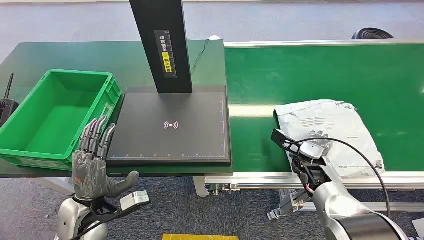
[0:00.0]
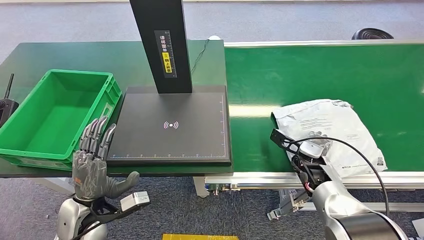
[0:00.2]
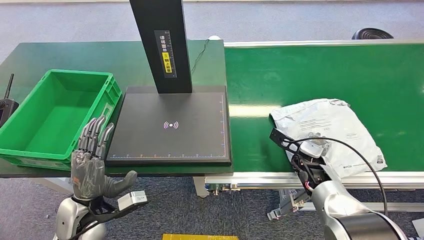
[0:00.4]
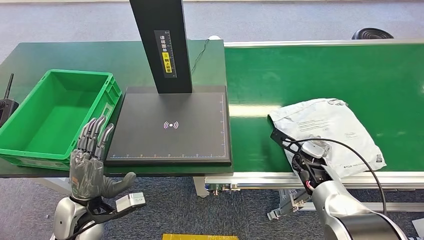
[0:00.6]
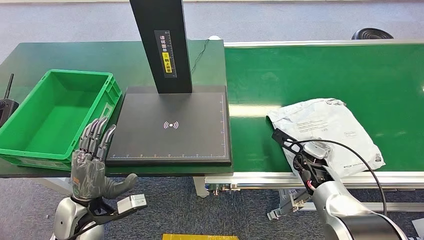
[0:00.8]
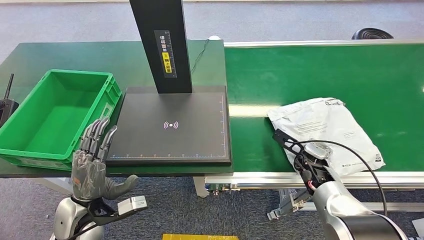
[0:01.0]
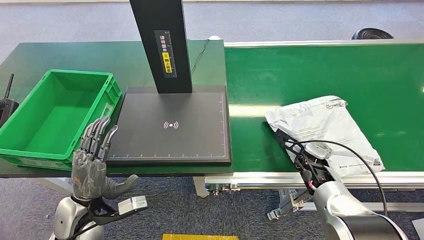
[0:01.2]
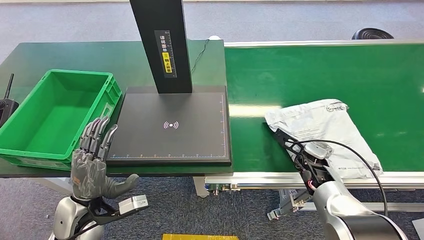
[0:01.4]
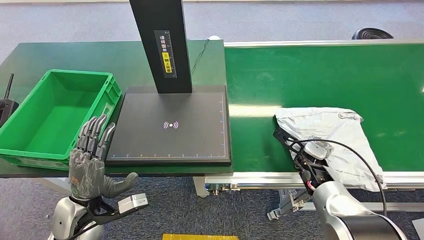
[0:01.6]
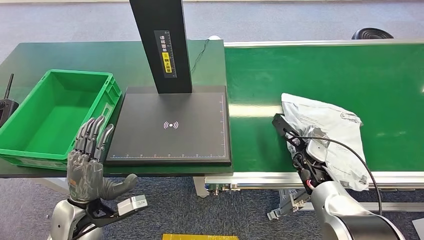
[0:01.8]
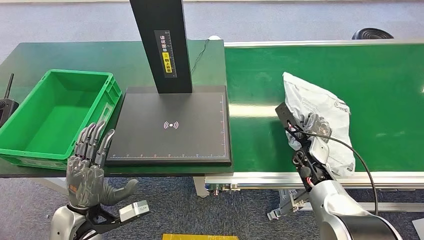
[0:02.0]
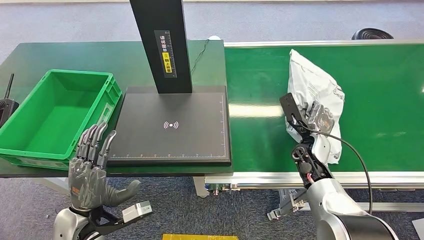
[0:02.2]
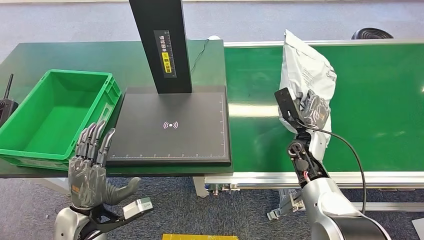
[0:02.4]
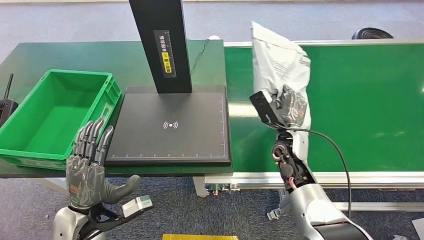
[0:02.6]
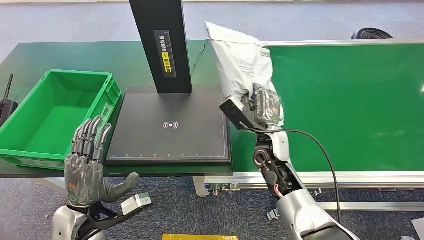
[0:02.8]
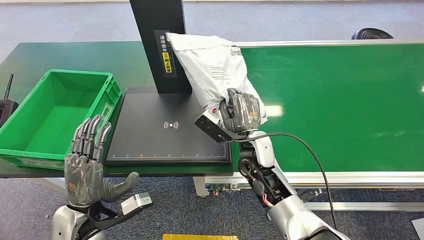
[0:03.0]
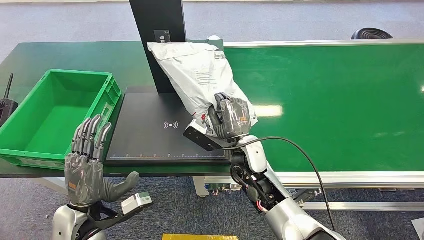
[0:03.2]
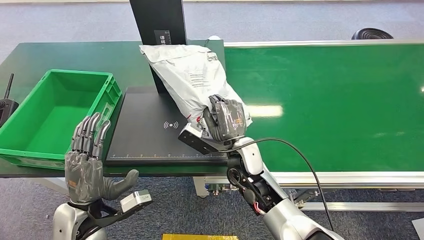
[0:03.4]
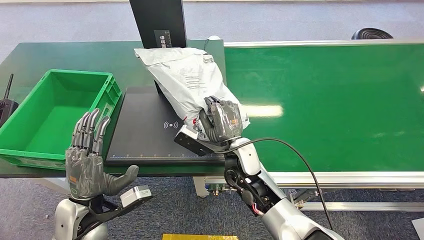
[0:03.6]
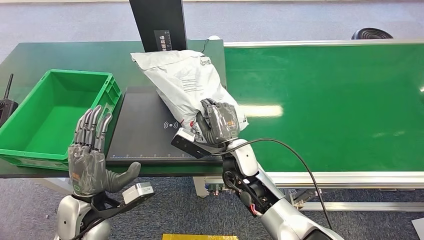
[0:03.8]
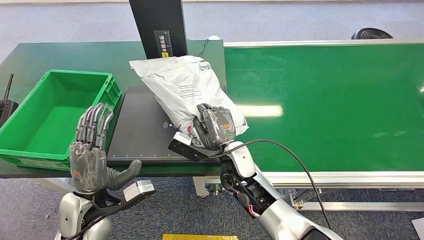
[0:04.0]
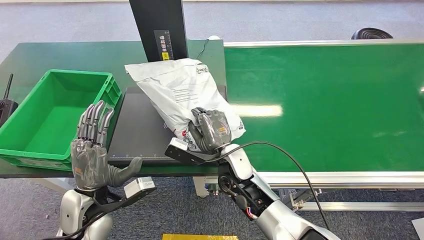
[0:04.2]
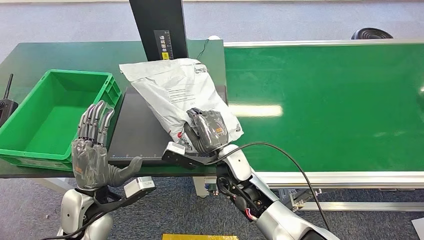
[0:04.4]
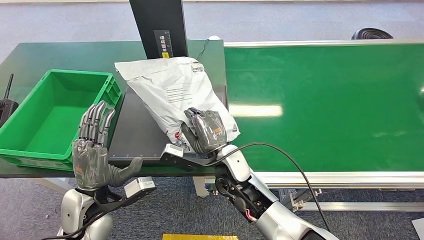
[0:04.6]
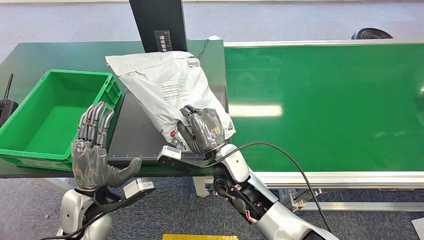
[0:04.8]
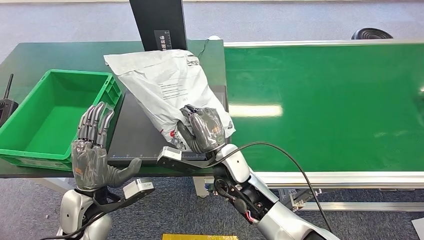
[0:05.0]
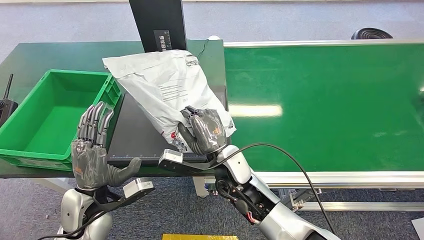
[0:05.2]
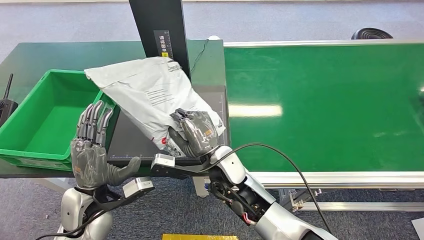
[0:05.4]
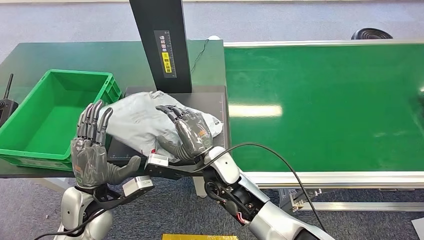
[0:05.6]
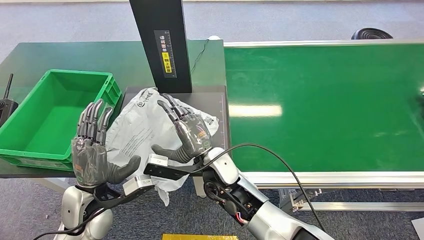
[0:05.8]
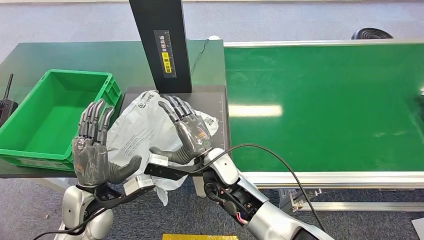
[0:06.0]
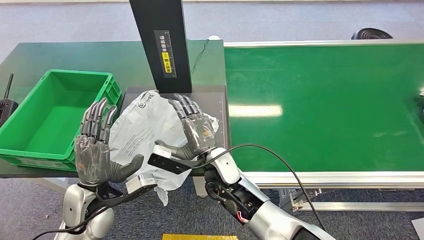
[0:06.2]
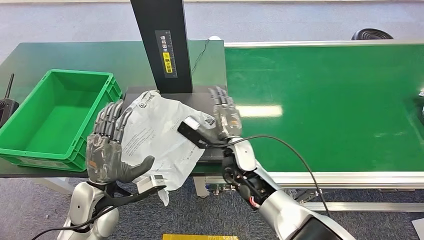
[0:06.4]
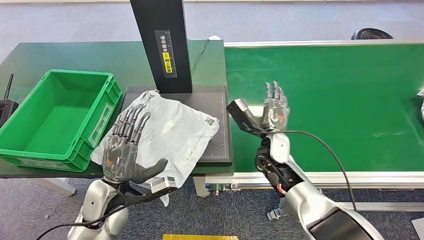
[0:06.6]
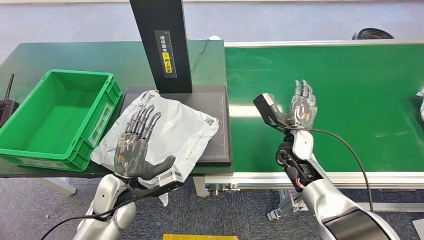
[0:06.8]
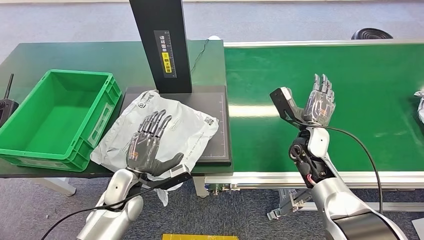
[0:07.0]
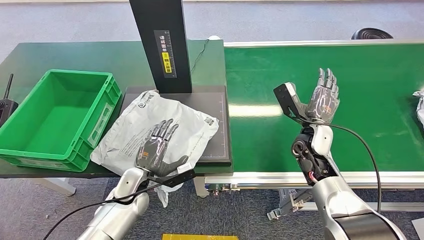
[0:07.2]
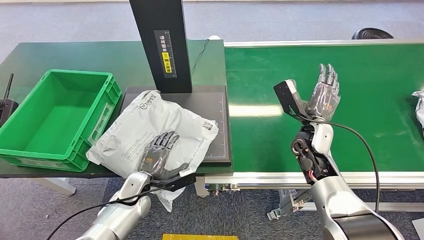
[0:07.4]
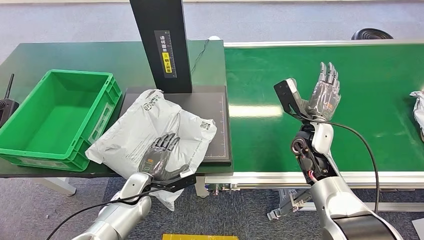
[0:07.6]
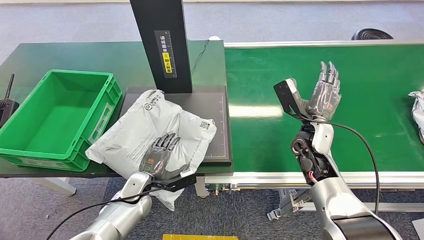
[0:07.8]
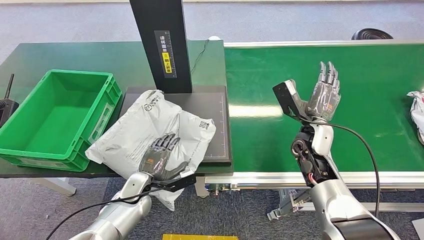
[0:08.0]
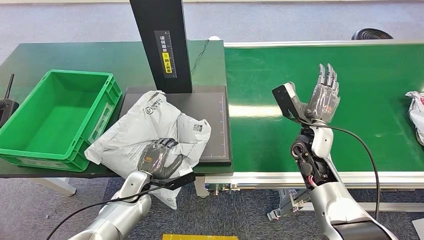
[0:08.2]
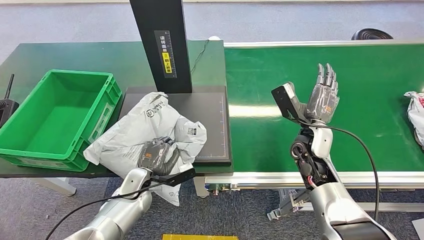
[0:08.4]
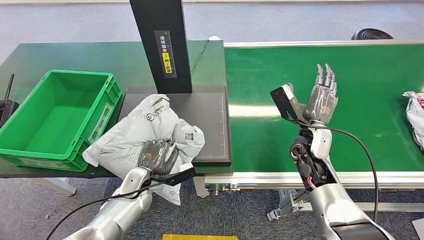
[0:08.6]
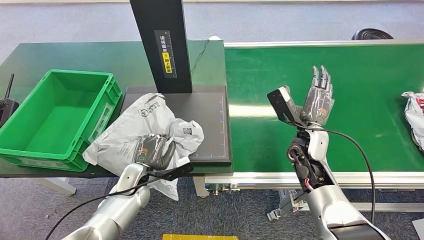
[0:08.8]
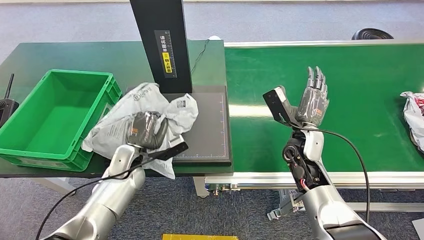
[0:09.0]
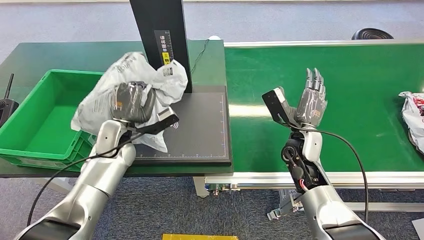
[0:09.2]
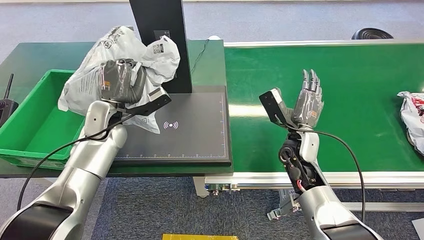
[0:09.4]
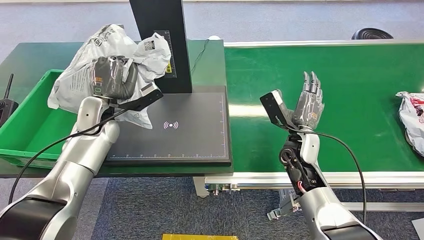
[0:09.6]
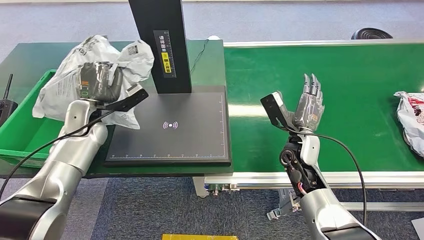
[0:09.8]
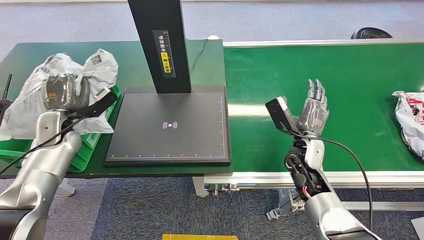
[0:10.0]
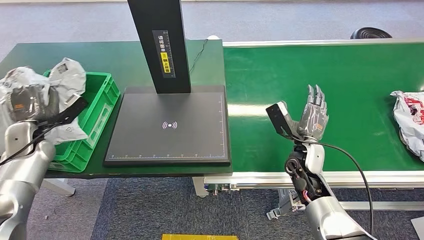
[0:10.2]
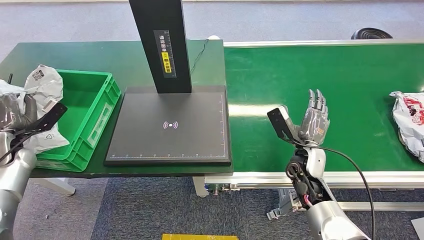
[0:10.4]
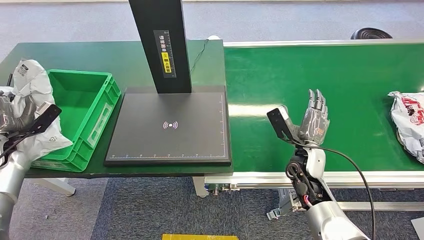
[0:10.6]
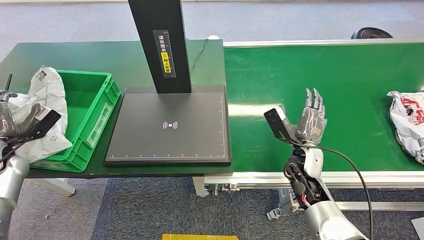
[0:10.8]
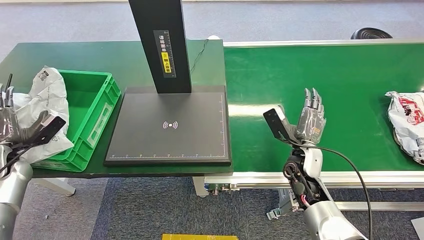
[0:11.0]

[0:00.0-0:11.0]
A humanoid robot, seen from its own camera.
Step, 0.0 to 2.2 s: Pick up the package from the conveyor belt.
Step, 2.4 to 5.8 s: Place the package onto the inbound machine.
Step, 6.0 to 9.0 s: Pick up the package from the inbound machine.
Step, 9.2 to 11.0 s: Place the package into the parcel locker.
4.8 to 6.2 s: There are only small adjustments of the hands.

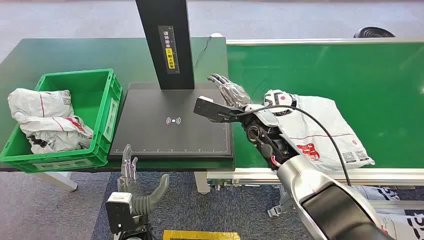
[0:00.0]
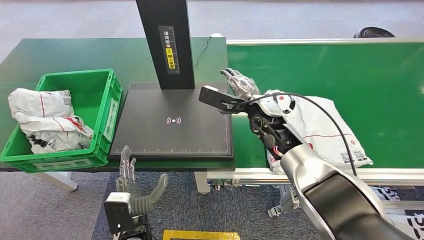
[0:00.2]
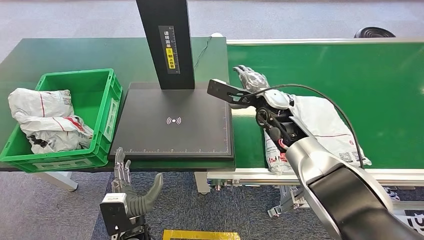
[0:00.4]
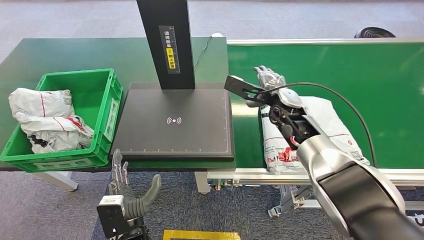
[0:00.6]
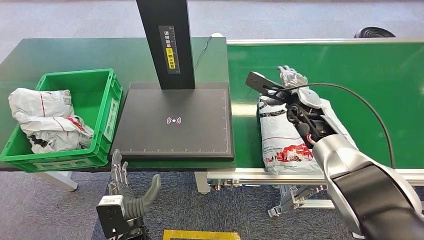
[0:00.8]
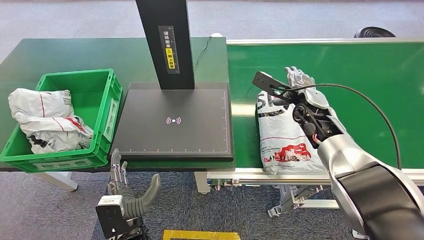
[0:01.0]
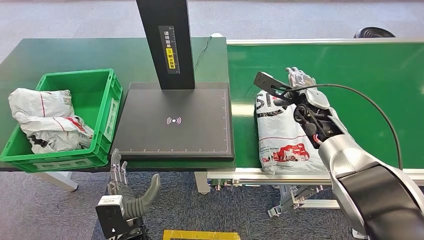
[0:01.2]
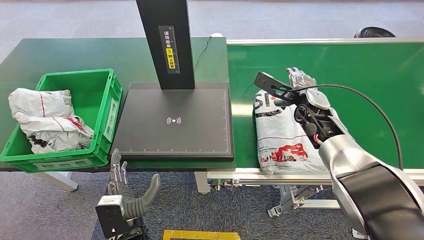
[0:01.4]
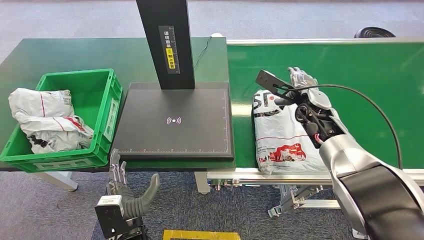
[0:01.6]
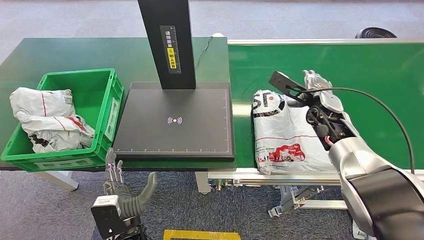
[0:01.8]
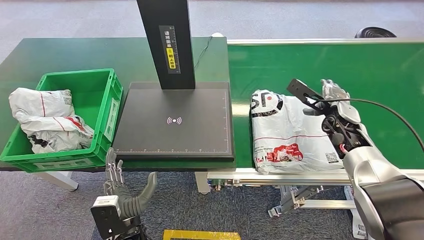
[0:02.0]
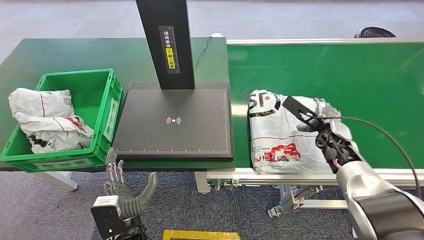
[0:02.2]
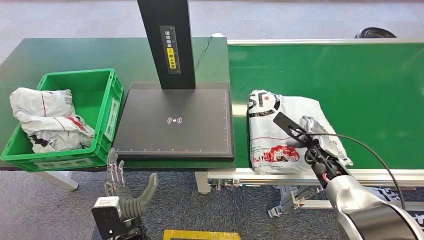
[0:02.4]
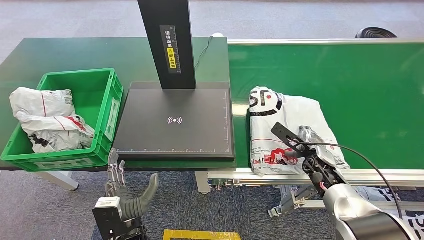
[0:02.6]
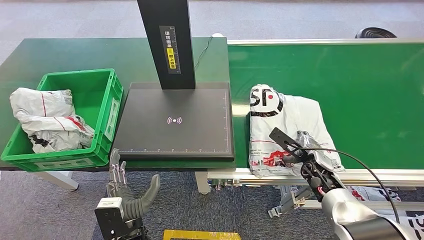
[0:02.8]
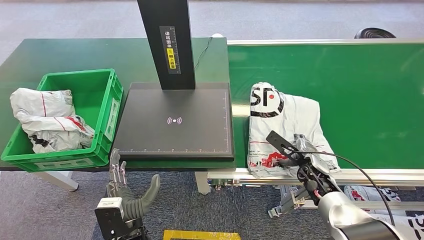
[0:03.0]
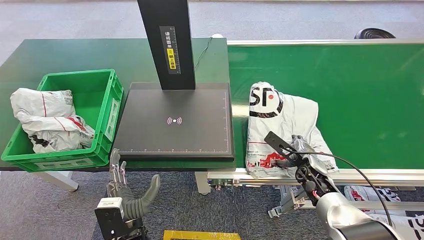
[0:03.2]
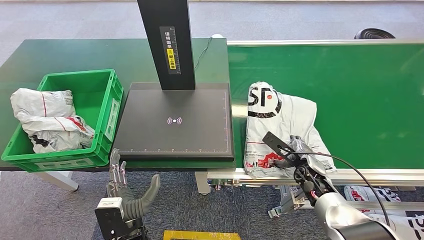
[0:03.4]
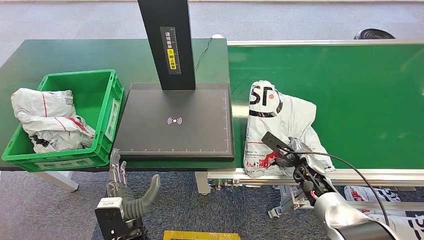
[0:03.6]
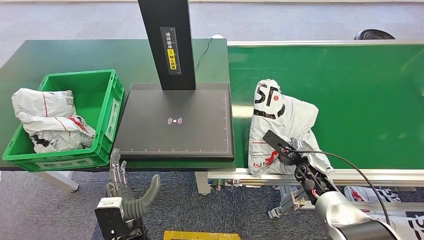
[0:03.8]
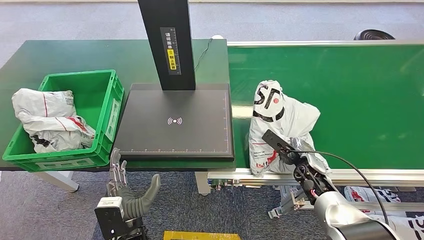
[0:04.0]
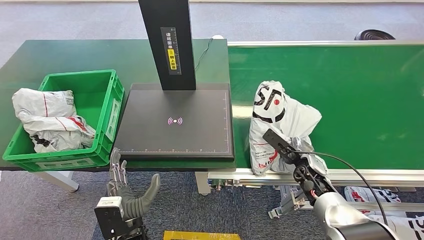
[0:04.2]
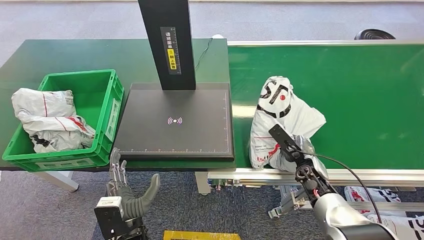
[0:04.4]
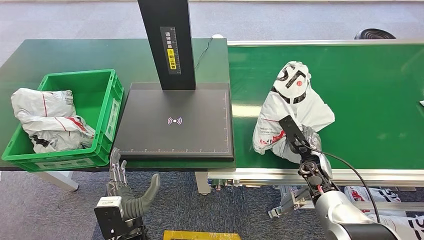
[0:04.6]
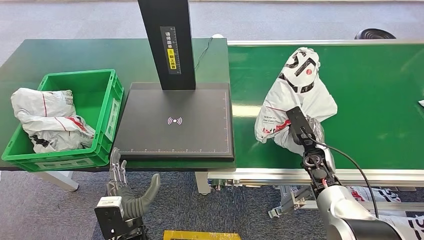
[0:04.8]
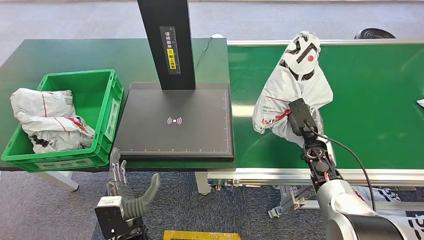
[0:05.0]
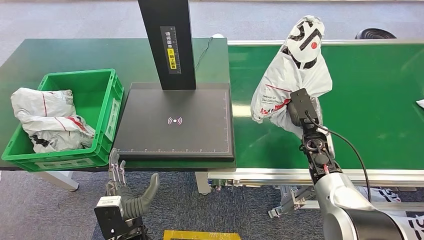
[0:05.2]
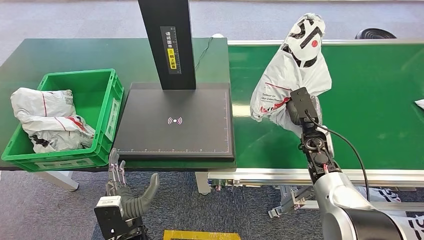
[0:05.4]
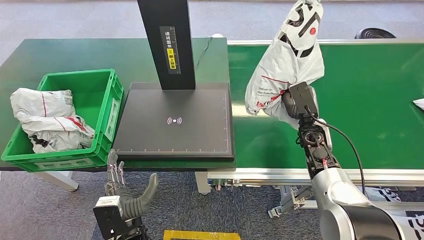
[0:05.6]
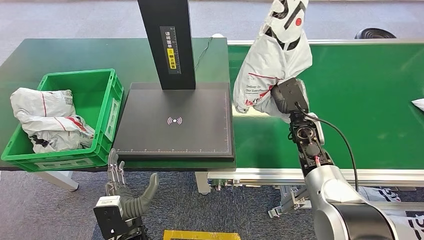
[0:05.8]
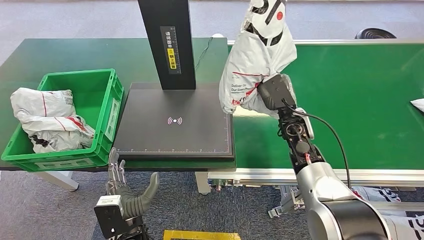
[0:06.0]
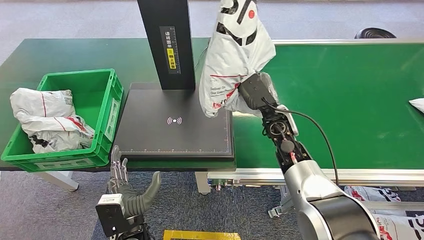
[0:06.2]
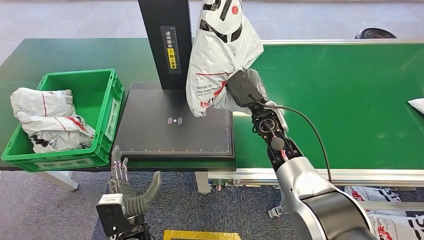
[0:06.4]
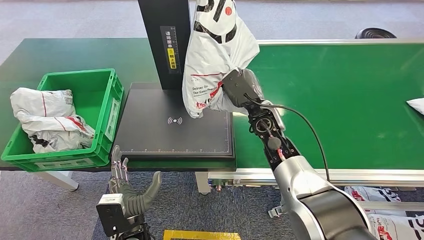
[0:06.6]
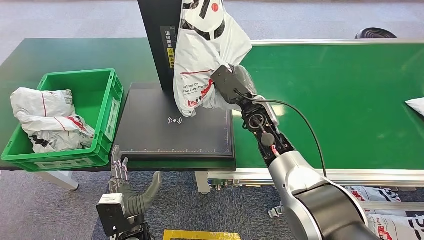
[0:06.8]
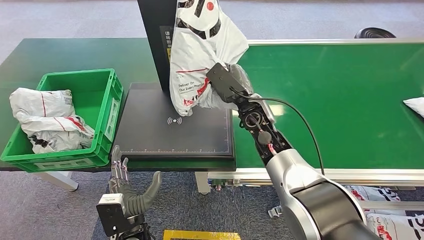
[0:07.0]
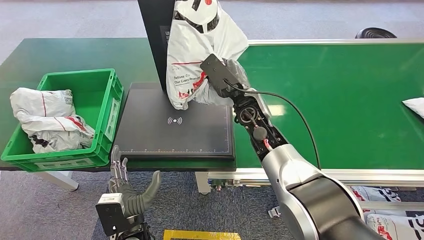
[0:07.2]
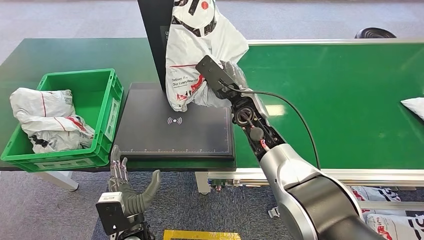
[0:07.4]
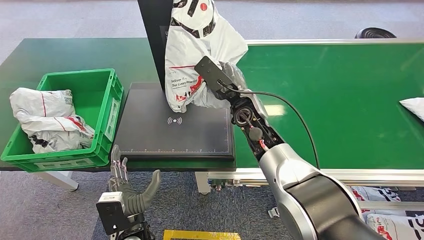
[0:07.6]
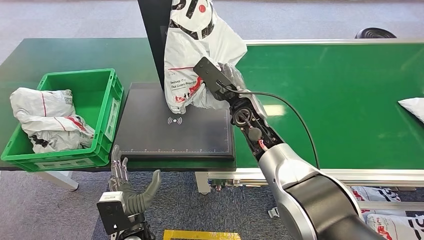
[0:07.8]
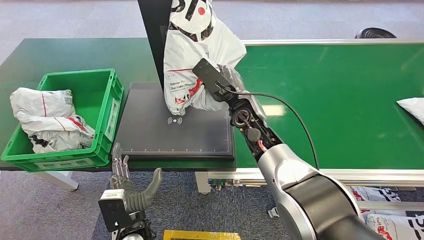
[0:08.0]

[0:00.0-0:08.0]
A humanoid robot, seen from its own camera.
Step, 0.0 to 4.6 s: Pick up the package from the conveyor belt.
1.6 to 3.2 s: The right hand heads downward and backward, covering about 20 cm.
6.4 to 8.0 s: The right hand heads to the left, covering roughly 5 cm.
